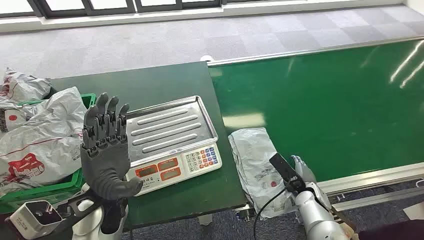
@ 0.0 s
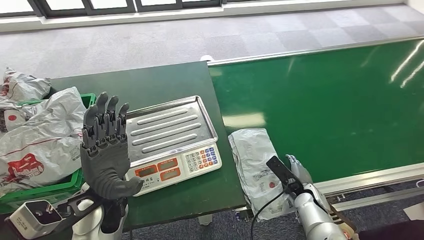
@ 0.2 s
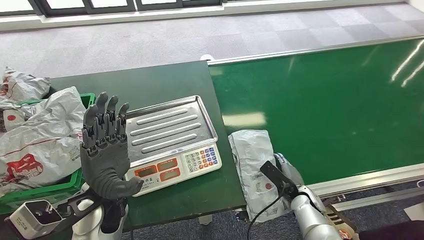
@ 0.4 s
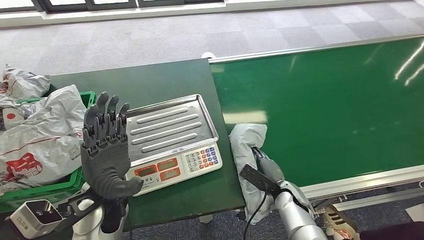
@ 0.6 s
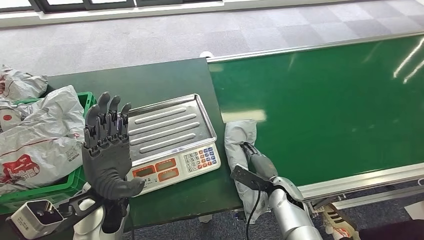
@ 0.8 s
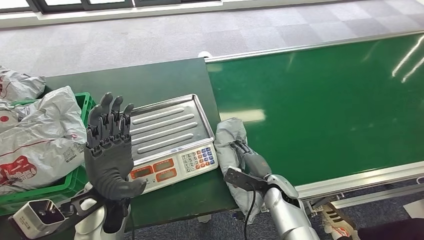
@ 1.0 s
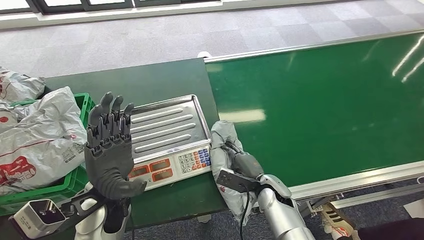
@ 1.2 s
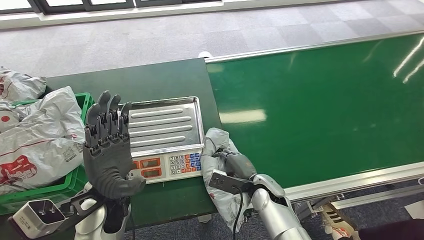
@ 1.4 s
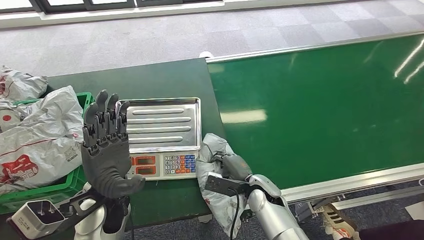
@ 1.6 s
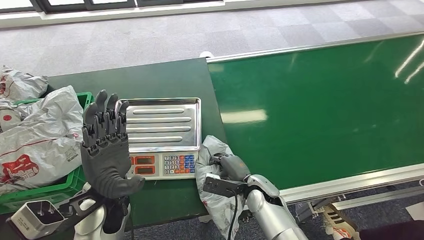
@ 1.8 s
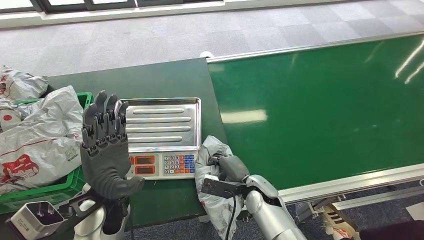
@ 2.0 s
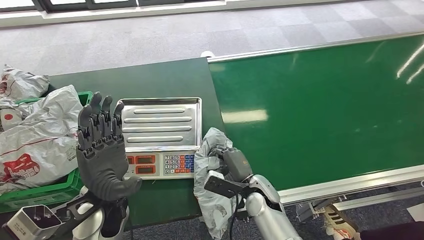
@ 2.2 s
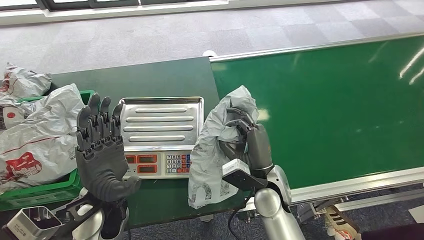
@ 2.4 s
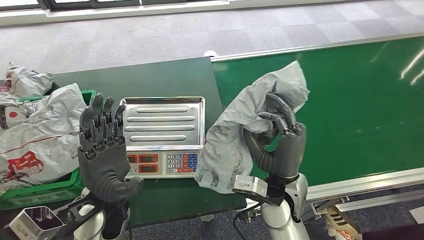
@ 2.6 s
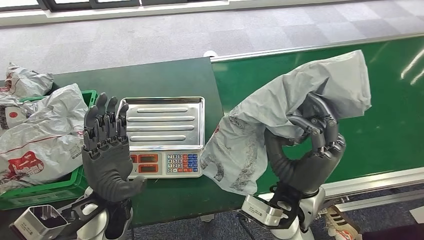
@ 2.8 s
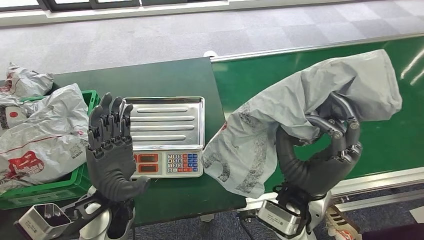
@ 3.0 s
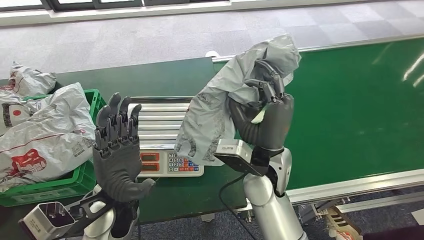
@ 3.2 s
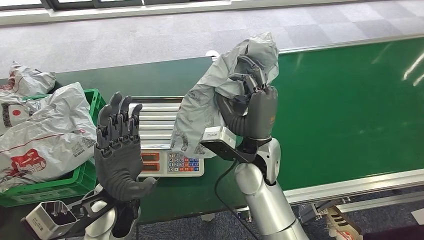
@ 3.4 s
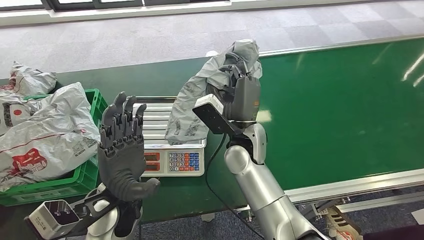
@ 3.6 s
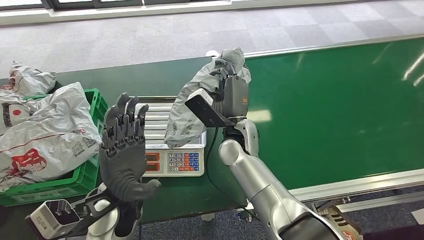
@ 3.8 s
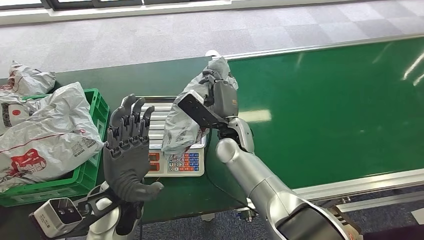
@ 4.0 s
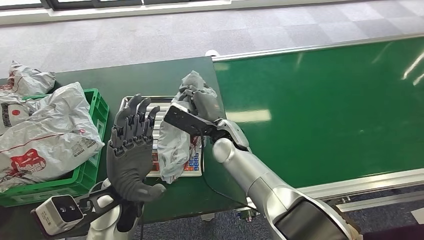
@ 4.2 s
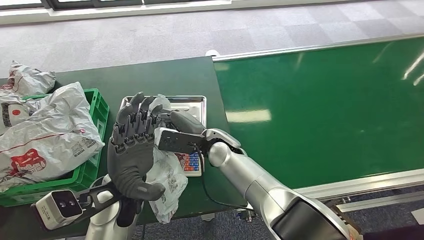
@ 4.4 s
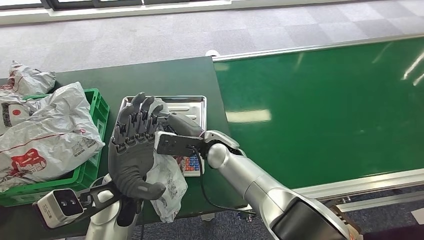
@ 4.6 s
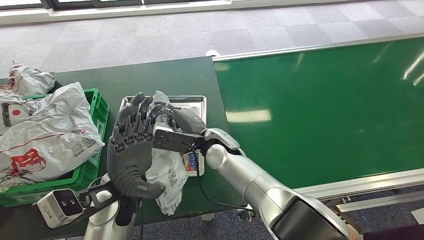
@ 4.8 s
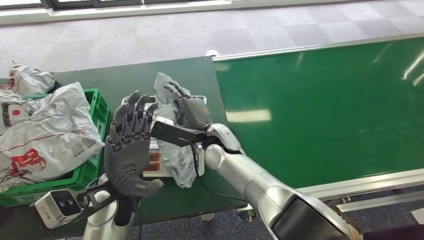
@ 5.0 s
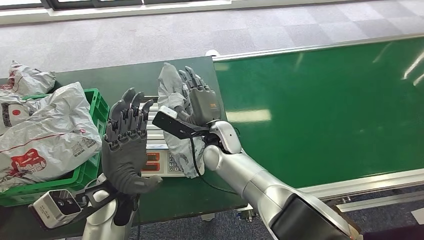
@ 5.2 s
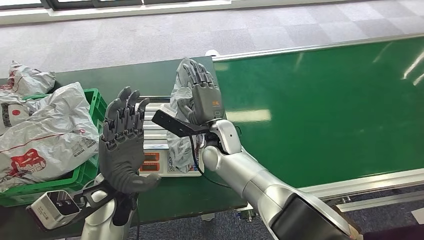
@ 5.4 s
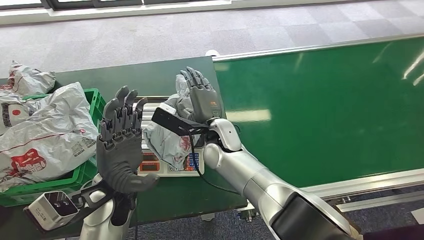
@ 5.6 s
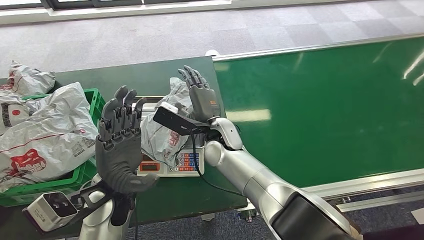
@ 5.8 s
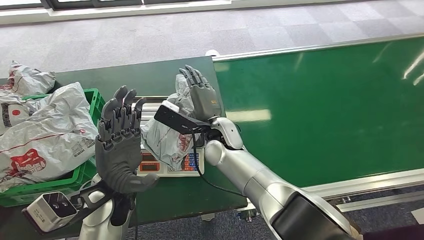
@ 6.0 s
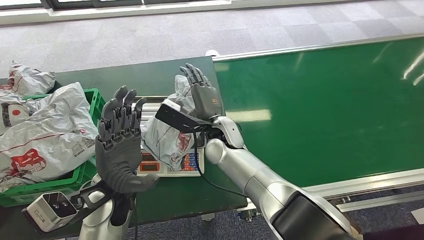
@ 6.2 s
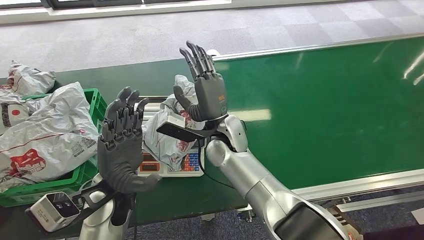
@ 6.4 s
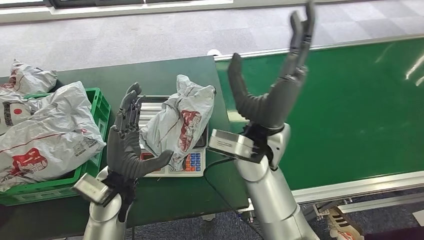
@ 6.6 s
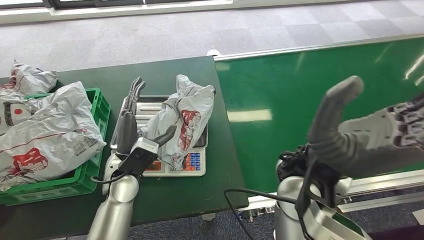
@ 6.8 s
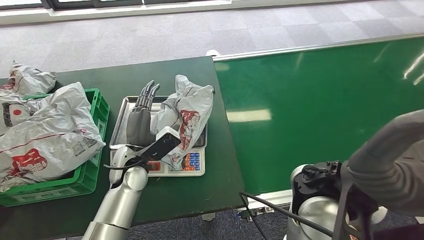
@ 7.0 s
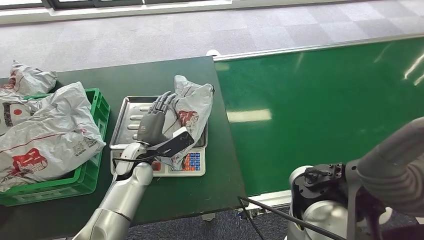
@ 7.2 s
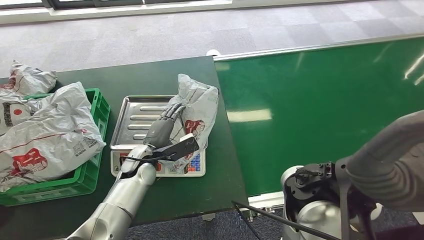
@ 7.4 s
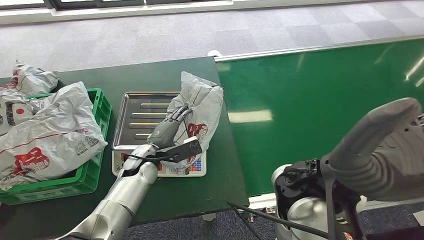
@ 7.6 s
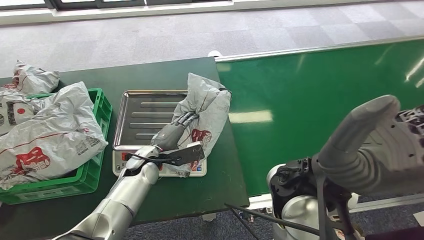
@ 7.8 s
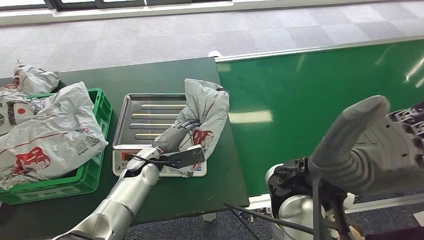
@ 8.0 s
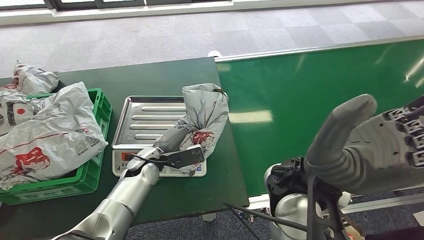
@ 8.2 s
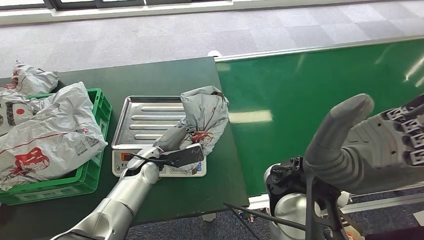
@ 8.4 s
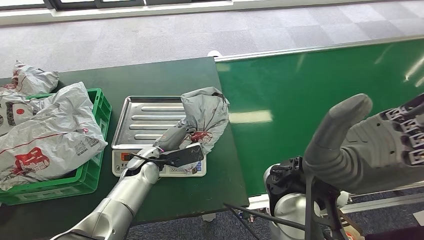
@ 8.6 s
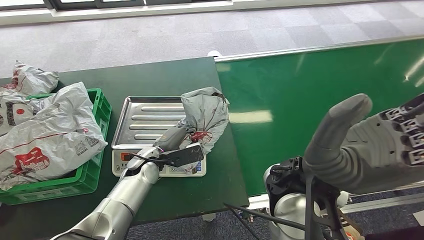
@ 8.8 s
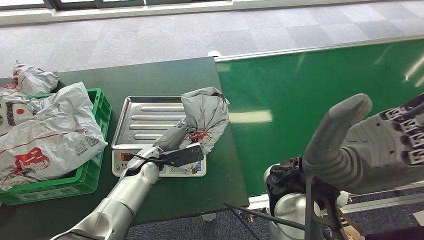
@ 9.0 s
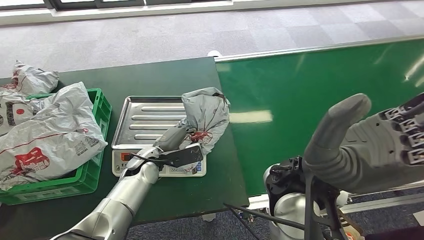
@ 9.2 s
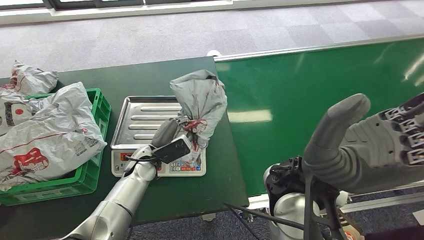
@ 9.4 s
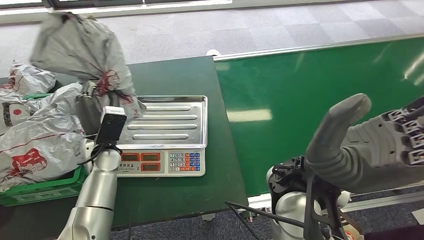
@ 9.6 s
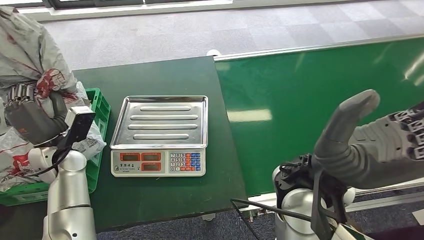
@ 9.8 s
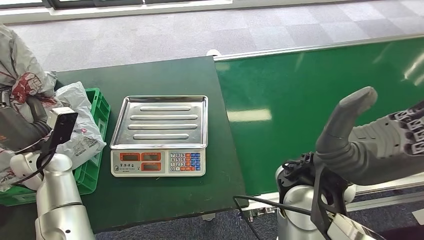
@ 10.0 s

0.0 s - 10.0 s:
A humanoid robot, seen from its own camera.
Step, 0.0 s - 3.6 s: Pick up the package from the conveyor belt.
Step, 3.8 s - 7.2 s: Place the package onto the inbound machine.

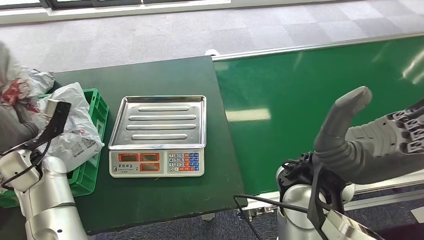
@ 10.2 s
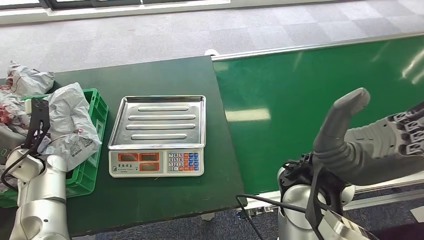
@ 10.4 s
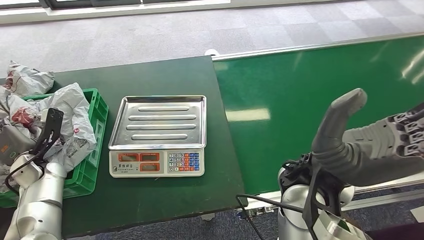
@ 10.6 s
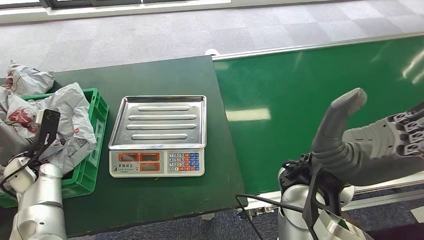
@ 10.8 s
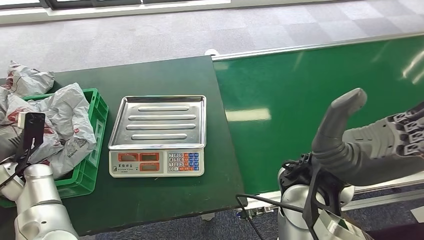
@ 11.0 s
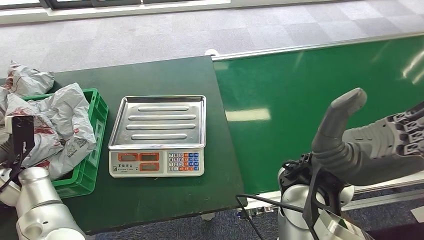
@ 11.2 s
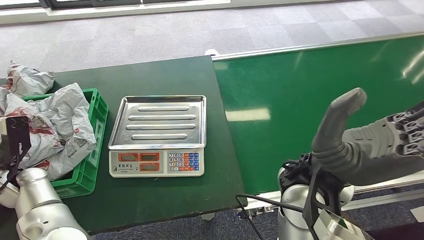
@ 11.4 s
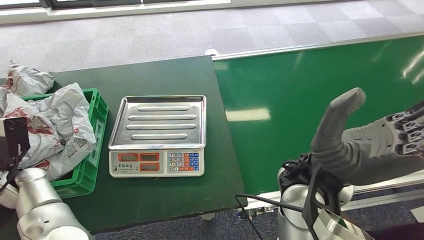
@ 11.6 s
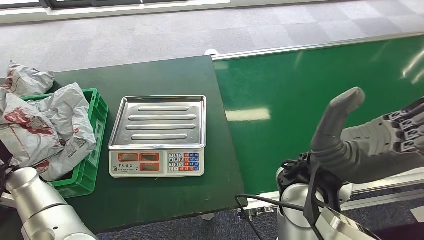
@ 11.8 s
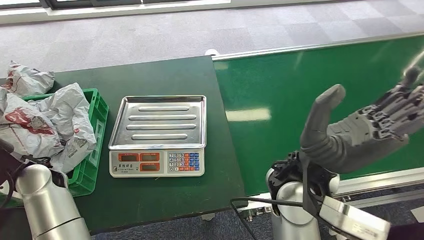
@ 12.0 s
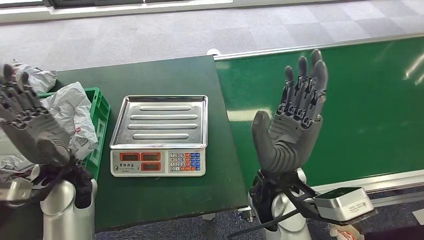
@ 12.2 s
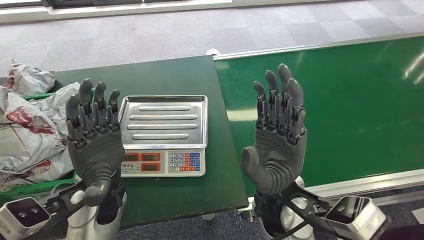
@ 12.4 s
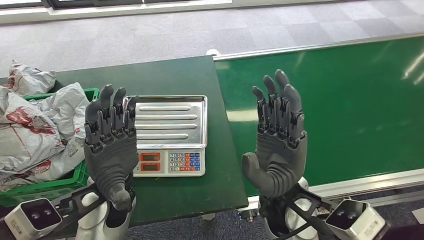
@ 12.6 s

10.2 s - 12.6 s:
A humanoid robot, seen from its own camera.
Step, 10.6 s - 12.6 s: Place the package into the parcel locker.
10.2 s - 11.4 s: The left hand shifts by roughly 5 cm.
